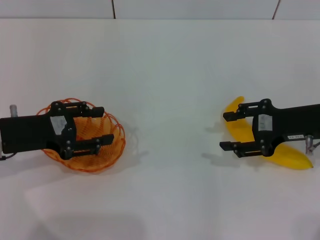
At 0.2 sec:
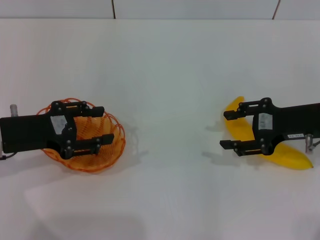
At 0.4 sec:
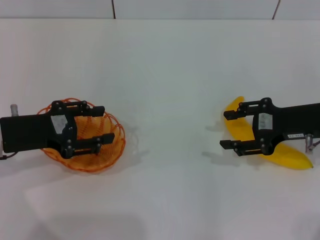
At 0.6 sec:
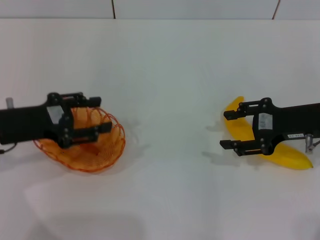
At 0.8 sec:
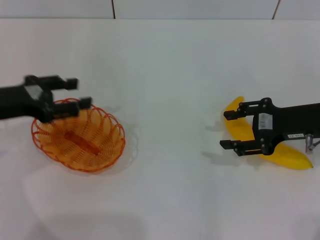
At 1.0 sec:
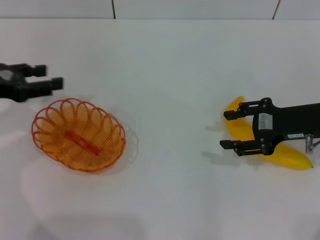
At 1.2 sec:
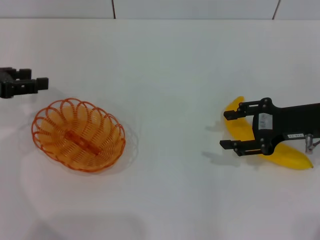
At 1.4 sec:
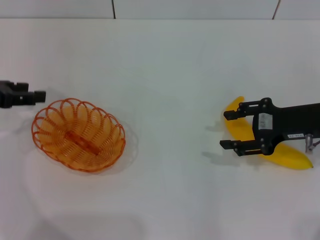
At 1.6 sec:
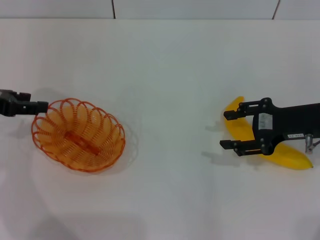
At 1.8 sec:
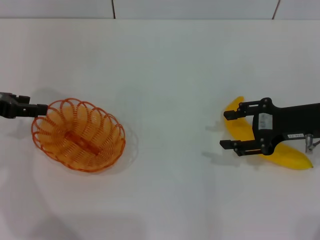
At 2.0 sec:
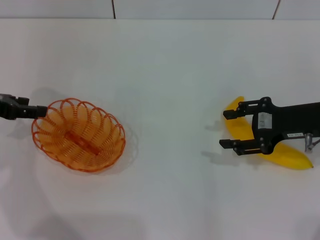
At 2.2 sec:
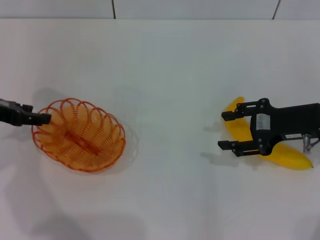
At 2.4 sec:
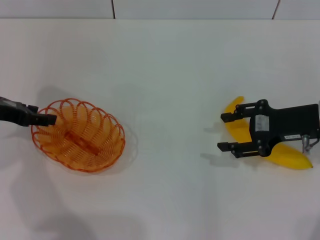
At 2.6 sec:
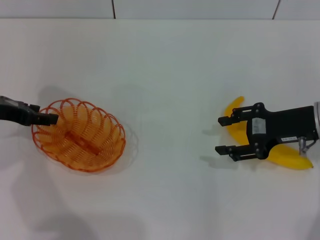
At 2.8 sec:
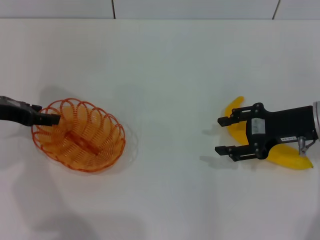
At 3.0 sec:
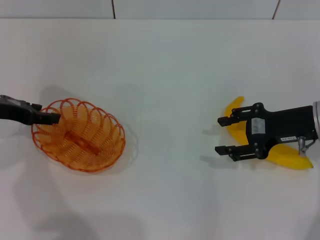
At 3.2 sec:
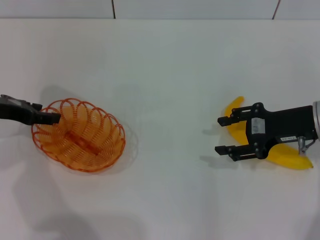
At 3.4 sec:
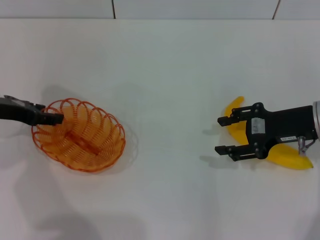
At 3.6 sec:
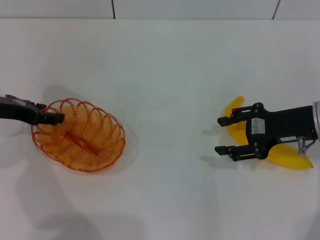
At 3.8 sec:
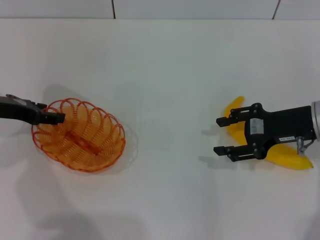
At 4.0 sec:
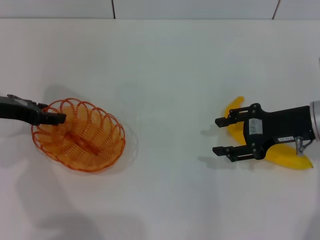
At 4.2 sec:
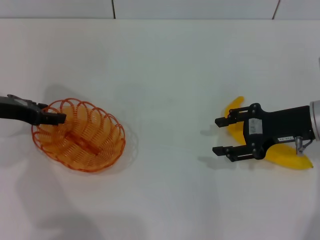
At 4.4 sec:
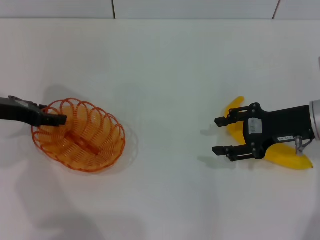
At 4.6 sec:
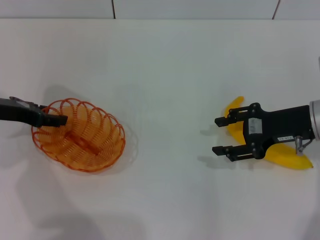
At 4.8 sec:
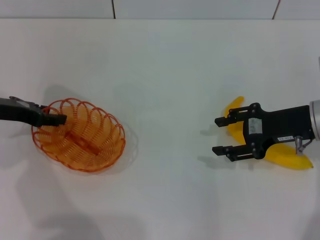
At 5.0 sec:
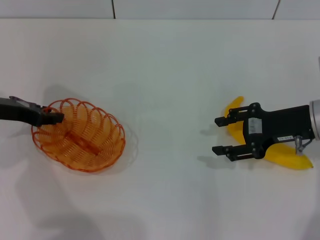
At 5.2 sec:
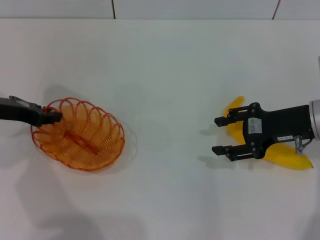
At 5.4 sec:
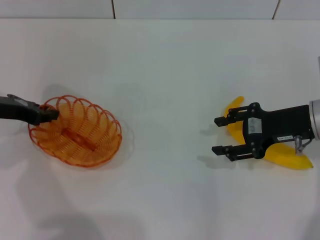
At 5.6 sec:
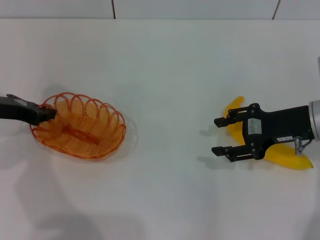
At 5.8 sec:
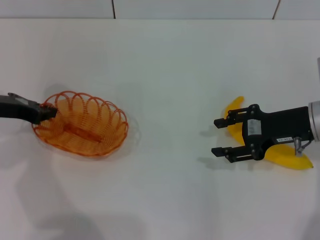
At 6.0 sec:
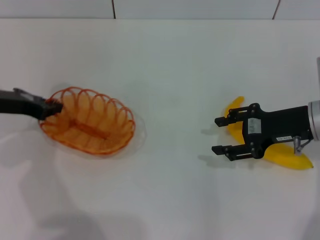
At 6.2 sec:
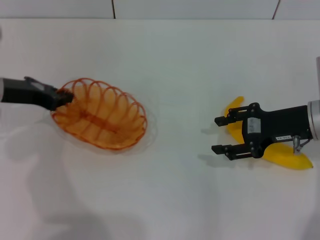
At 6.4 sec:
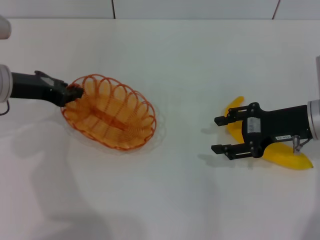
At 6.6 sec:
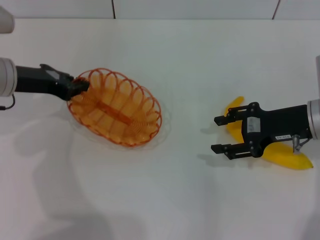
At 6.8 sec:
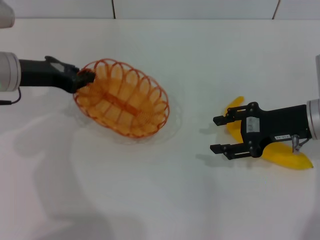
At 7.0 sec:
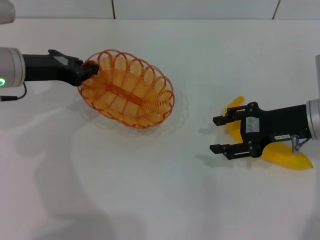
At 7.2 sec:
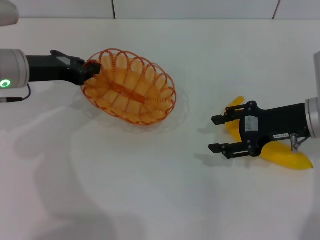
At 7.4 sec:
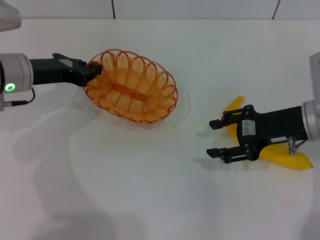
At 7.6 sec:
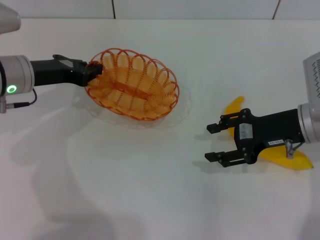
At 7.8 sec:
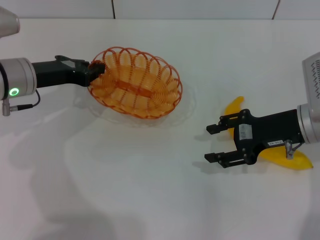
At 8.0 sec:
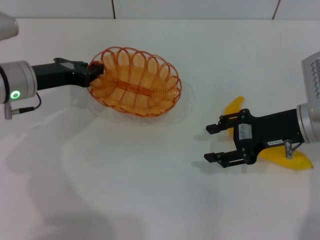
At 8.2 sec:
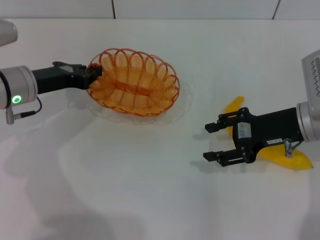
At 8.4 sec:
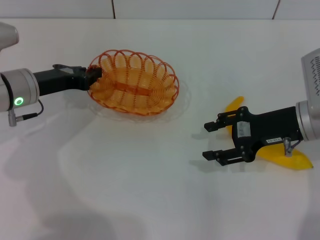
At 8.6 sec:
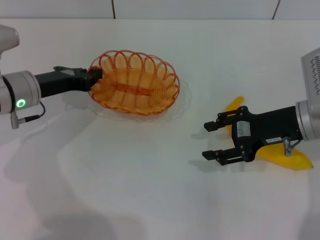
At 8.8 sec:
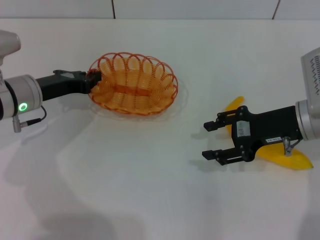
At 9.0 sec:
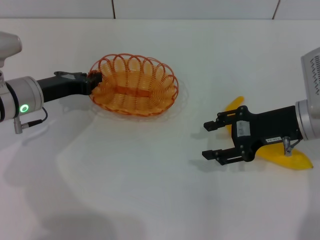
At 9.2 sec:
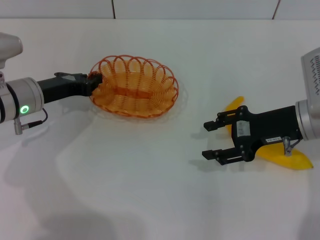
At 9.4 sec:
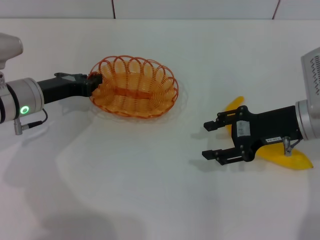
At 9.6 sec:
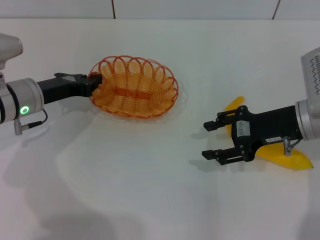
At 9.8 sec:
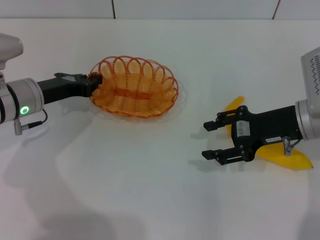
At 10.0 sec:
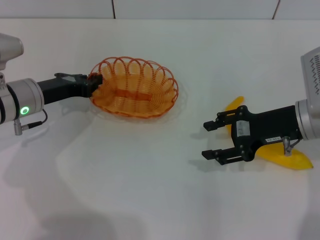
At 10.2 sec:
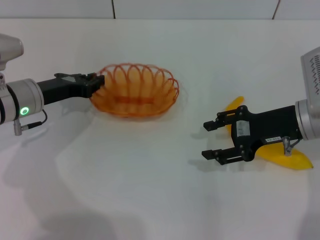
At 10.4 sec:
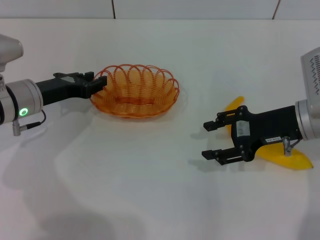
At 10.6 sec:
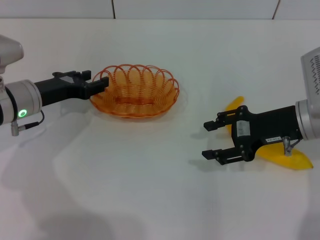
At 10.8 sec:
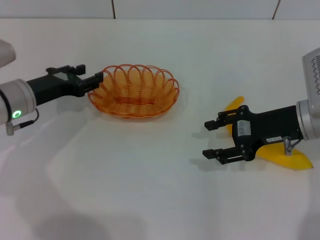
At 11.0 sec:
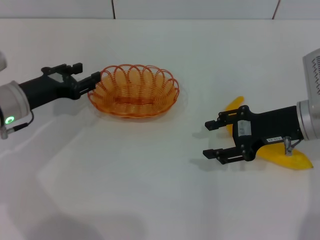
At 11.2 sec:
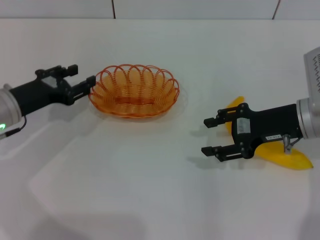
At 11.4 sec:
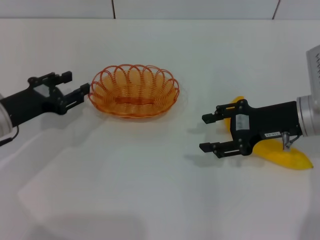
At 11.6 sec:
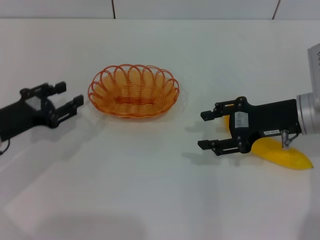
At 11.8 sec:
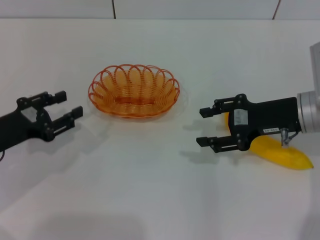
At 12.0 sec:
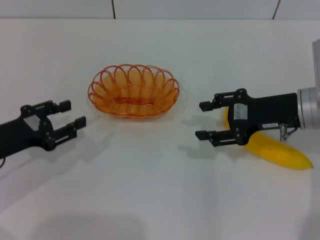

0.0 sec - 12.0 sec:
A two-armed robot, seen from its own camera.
Step, 0.0 sec - 6.6 sec: Pick up the basket with the left gripper.
Step, 6.8 sec - 10.6 sec: Place the basket in the center of view with the left gripper.
0.0 sec - 1.6 sec: The left gripper travels to the left by some 5 cm.
1.6 sec - 3.0 sec: The grippers stay close to where they were, moving slightly.
3.0 sec - 4.4 sec: Both grippers stay put.
4.4 sec - 6.0 sec: The left gripper closes.
6.0 sec - 7.6 sec: The left gripper travels to the right by about 5 cm.
7.6 sec - 9.0 sec: The grippers stay close to where they were, moving slightly.
9.0 sec - 10.4 sec: Both grippers stay put.
10.4 sec - 12.0 sec: The left gripper travels backward and to the left by about 10 cm, and opens up.

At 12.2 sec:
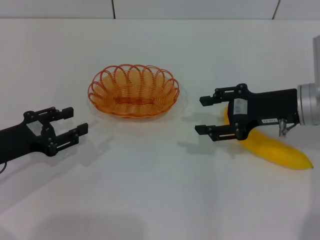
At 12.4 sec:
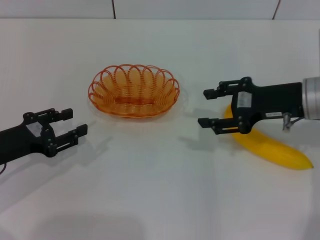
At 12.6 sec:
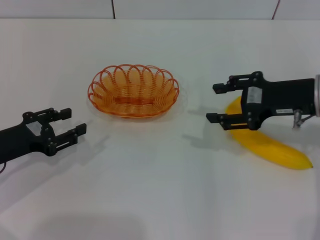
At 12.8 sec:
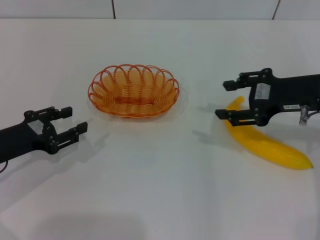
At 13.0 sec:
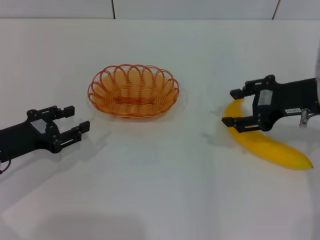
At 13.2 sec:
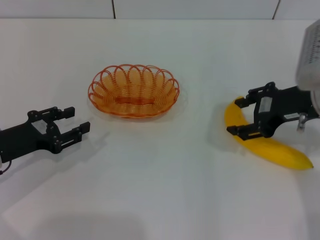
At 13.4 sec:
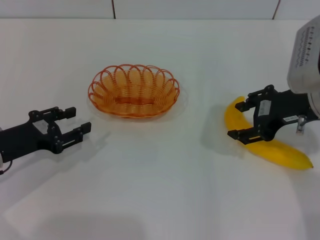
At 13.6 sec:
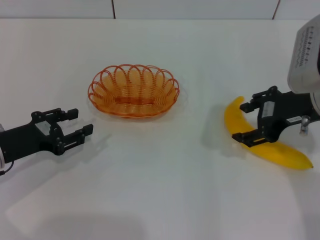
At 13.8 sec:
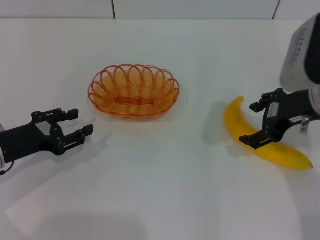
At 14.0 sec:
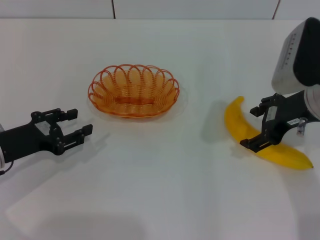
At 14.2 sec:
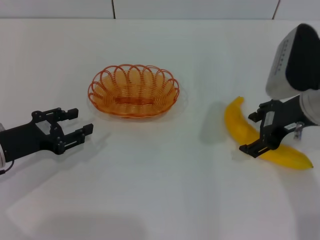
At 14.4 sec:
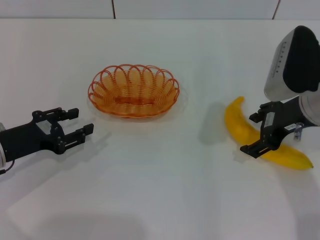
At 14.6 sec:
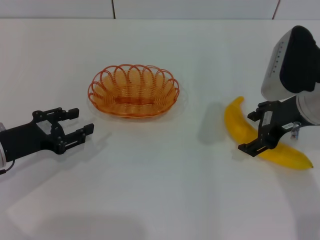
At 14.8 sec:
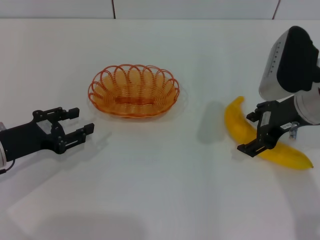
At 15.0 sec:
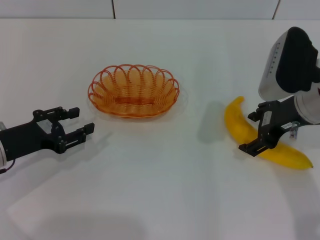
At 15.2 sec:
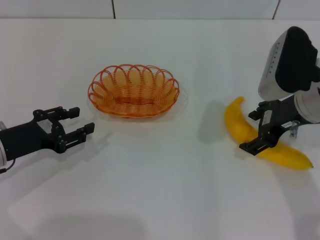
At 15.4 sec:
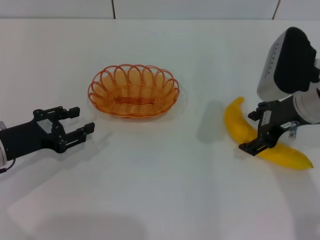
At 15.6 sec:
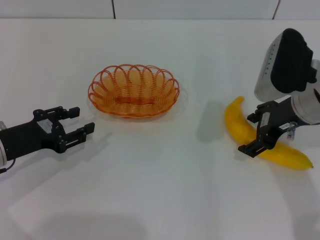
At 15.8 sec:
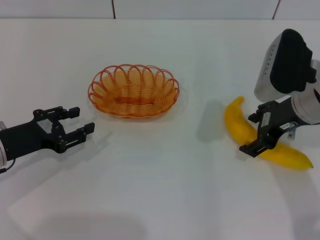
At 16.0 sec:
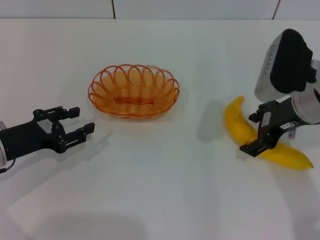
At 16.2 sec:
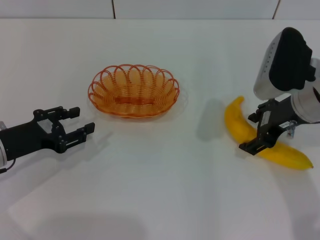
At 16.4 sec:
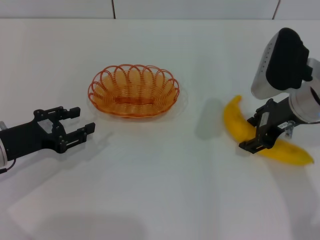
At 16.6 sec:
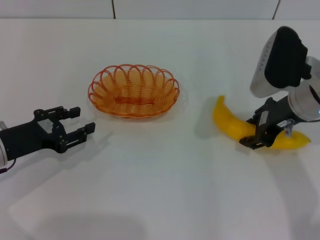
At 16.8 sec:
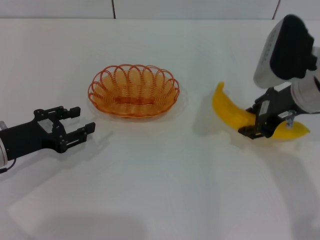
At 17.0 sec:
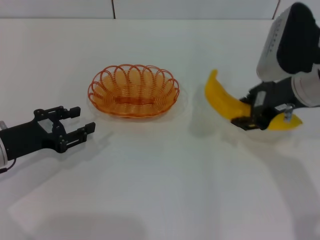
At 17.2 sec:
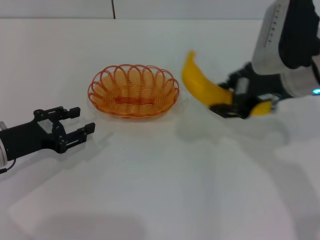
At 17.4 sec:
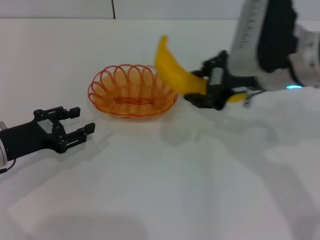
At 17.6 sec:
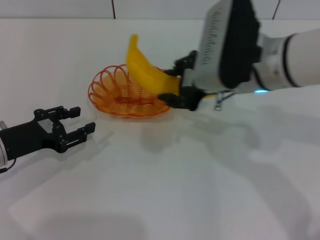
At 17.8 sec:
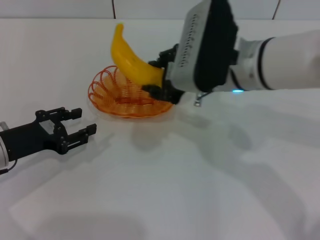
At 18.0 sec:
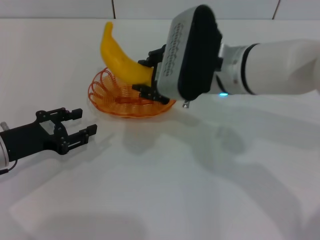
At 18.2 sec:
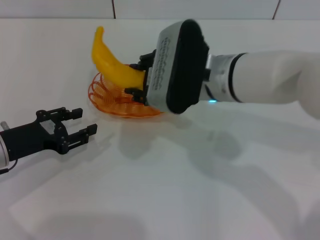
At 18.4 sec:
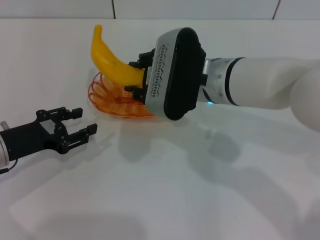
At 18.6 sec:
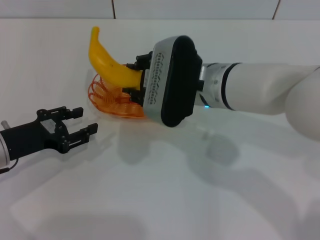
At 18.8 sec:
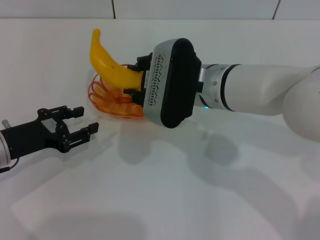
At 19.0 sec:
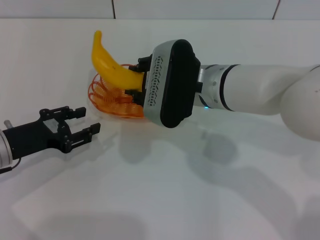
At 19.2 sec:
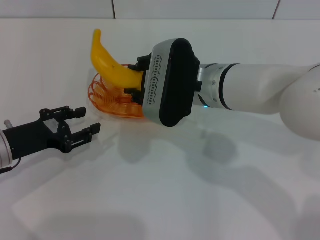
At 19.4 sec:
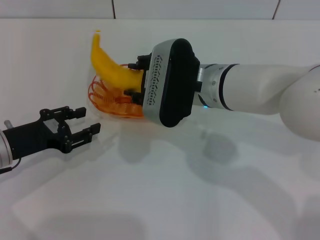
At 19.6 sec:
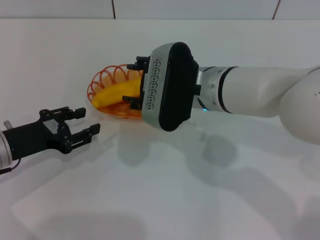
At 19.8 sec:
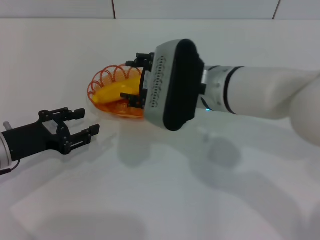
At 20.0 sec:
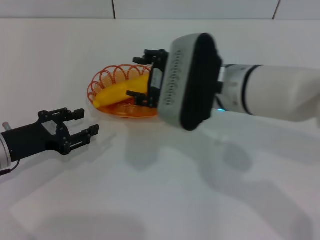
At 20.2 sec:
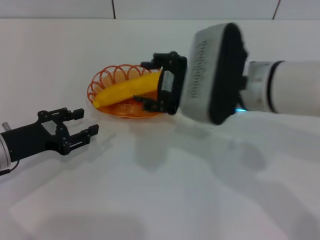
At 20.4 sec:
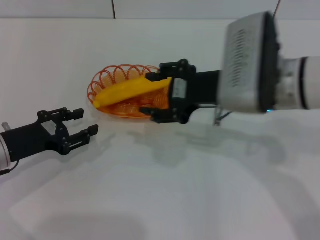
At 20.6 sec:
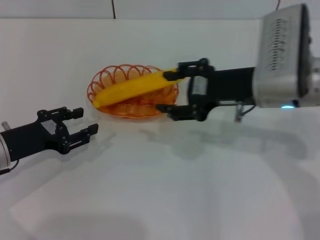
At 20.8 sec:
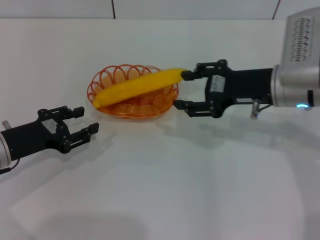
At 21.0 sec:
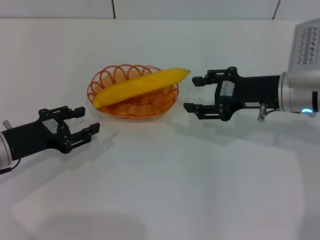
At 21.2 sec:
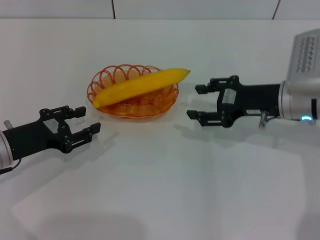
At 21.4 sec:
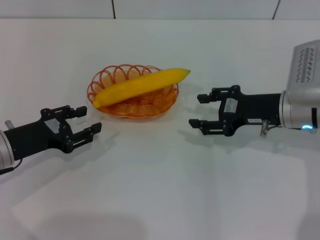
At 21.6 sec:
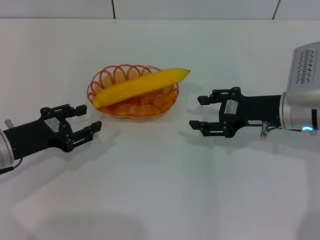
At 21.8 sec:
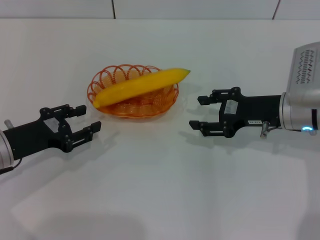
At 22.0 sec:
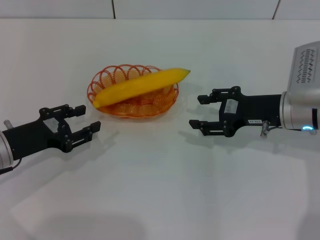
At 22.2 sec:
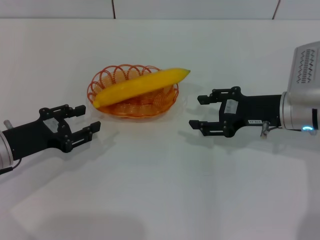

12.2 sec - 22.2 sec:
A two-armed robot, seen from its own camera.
Step, 12.2 sec - 17.2 sec: Pick up the banana with the right gripper.
Step, 17.4 sec - 19.8 sec: Place the banana into the basket with the right gripper.
12.2 sec - 13.6 sec: The right gripper shifts roughly 5 cm upward.
13.6 sec - 15.0 sec: The grippers move only a little.
15.0 sec - 16.4 sec: Both grippers stay put.
16.4 sec - 18.0 sec: The right gripper heads to the left, covering about 15 cm, and closes.
18.0 sec - 19.4 sec: The grippers move only a little.
19.4 sec - 20.8 sec: The right gripper travels to the right by about 15 cm, and opens its fingers.
20.8 sec - 22.2 sec: The right gripper moves downward, about 5 cm.
